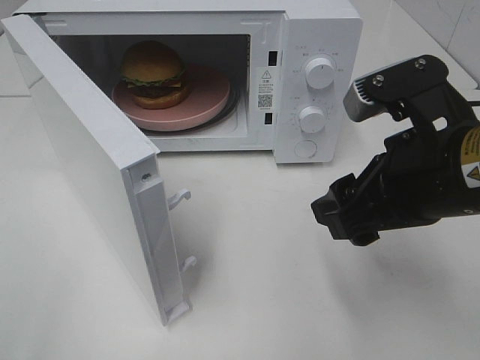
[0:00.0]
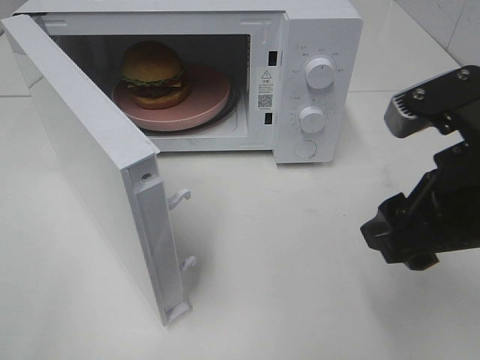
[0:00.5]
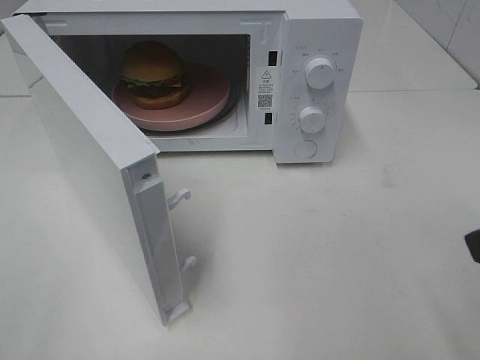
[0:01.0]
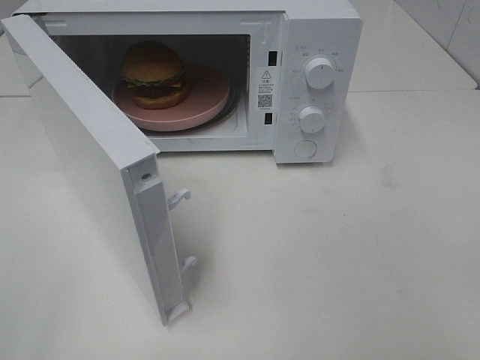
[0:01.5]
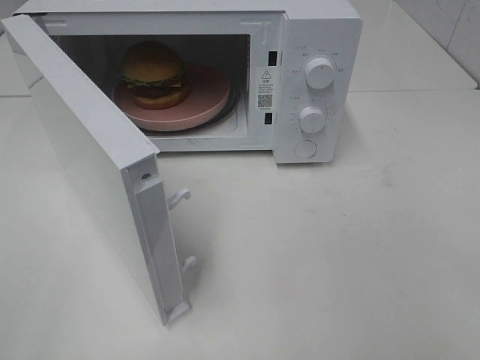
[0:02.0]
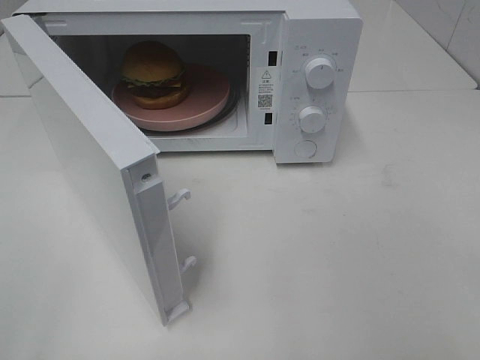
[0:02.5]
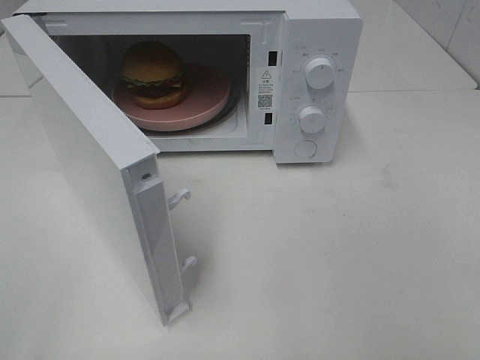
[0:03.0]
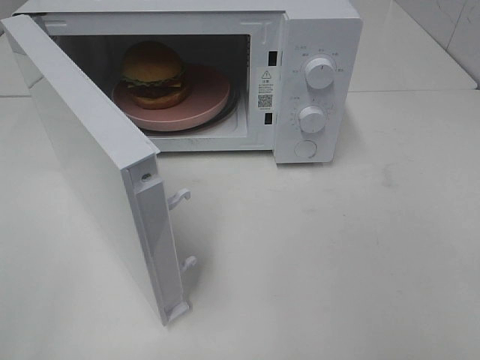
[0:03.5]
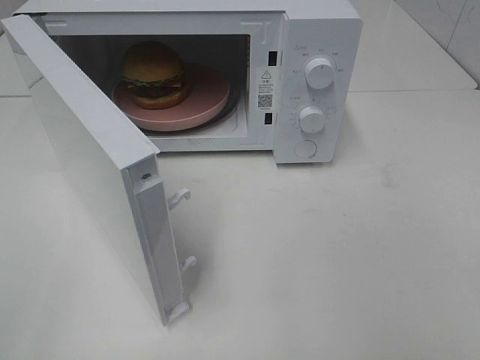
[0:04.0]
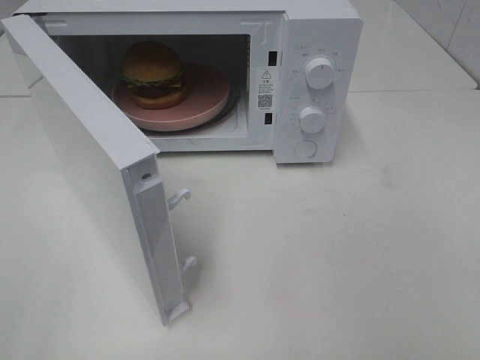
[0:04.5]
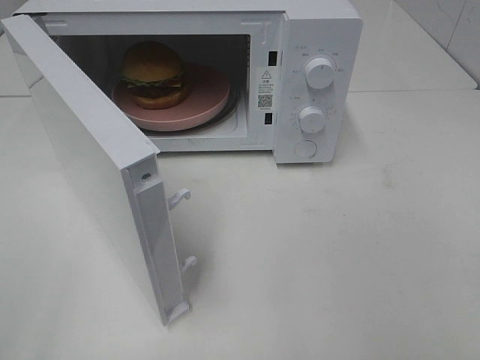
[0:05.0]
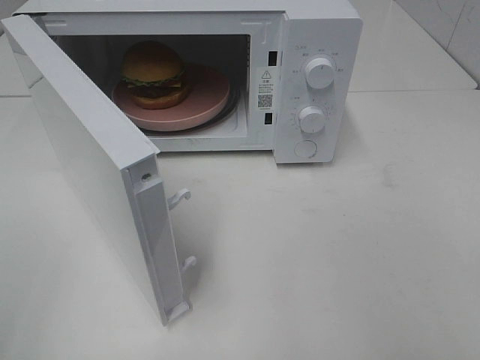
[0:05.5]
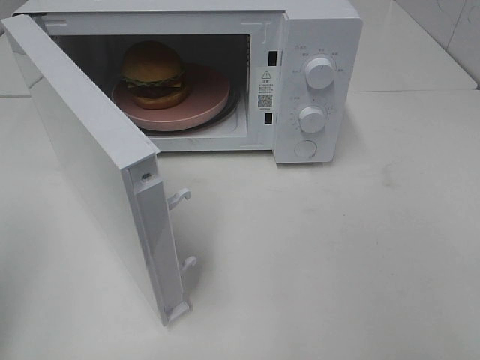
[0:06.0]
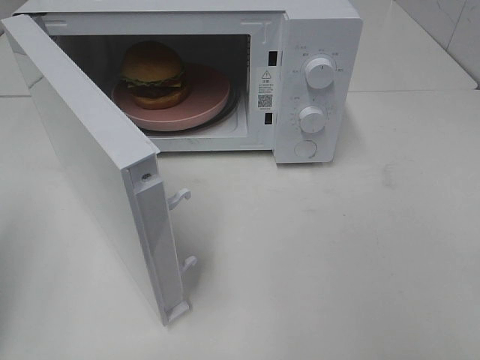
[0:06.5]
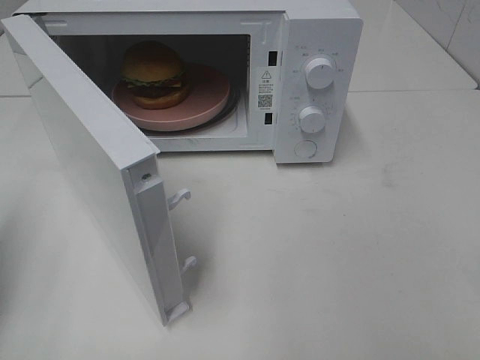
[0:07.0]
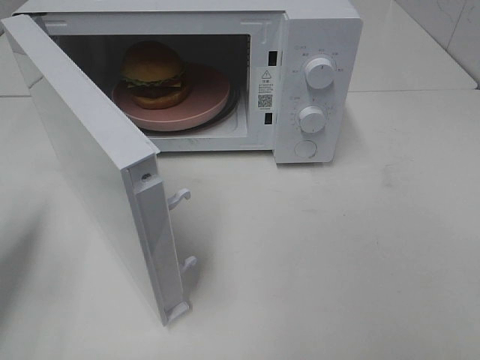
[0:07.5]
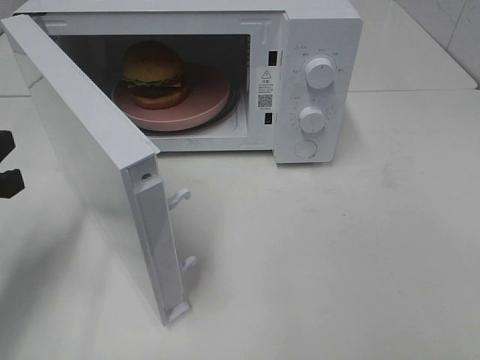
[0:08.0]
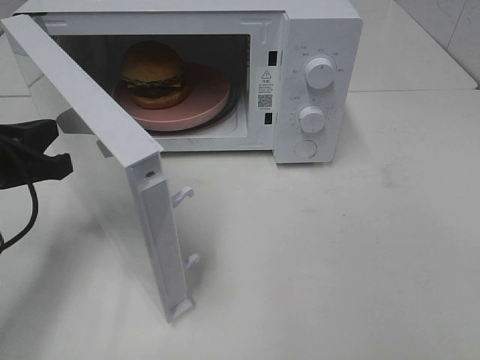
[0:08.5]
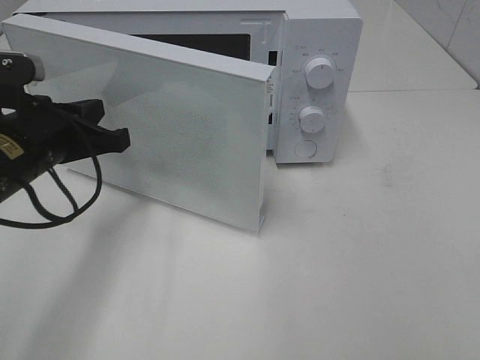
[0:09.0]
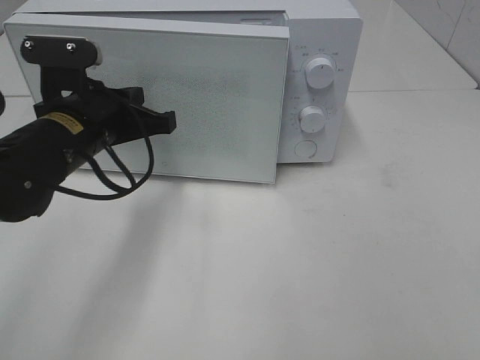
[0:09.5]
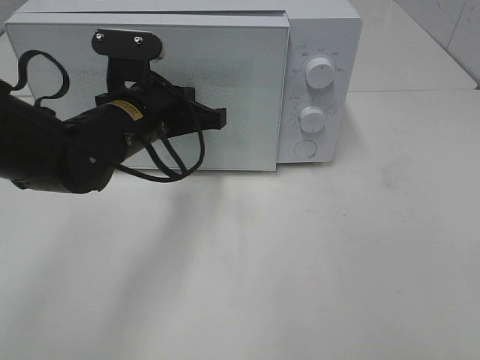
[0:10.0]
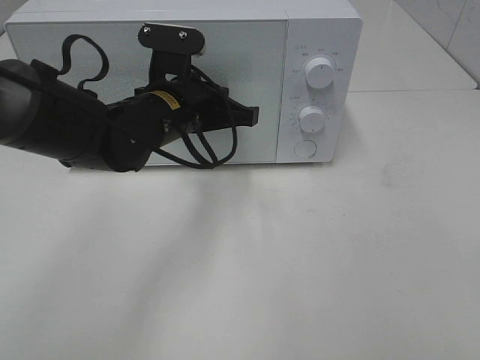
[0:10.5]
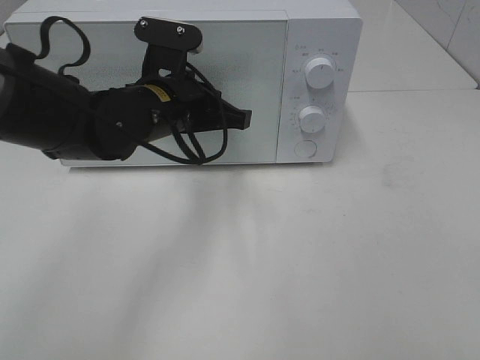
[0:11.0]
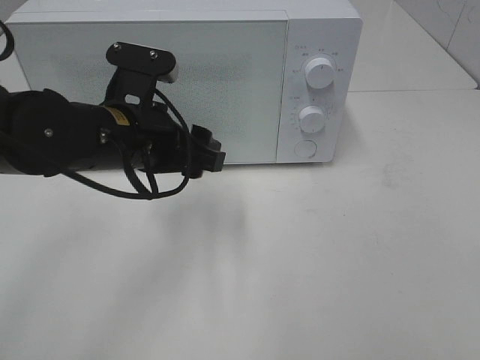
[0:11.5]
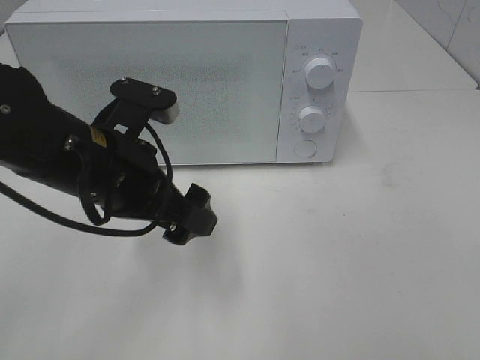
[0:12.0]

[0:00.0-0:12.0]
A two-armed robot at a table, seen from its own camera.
Task of the whole recording: Heat the burger.
Step, 0:00.0 to 0:11.0: Left hand: close the microwave door.
0:00.0 to 0:02.0: The right gripper shifts about 20 cm backward and to the right.
0:06.0 to 0:08.0: The left gripper travels downward and forward by approximately 15 cm.
0:08.0 to 0:10.0: The left gripper heads to the right and forward, covering about 20 cm.
0:10.0 to 0:12.0: The left gripper is displaced backward by approximately 10 cm, and opens its fingers.

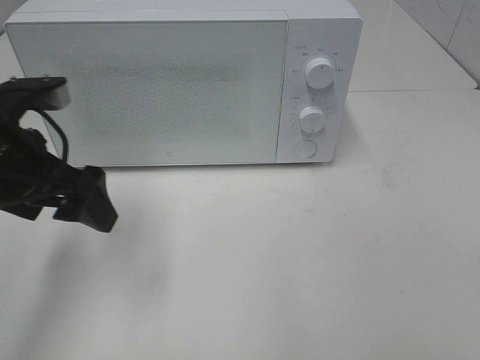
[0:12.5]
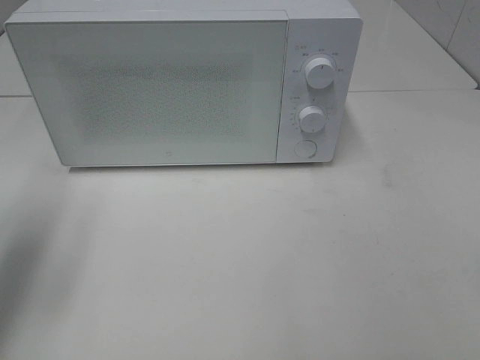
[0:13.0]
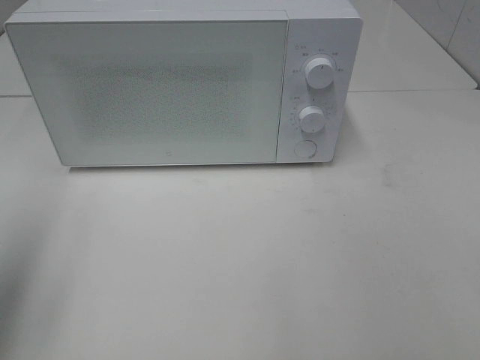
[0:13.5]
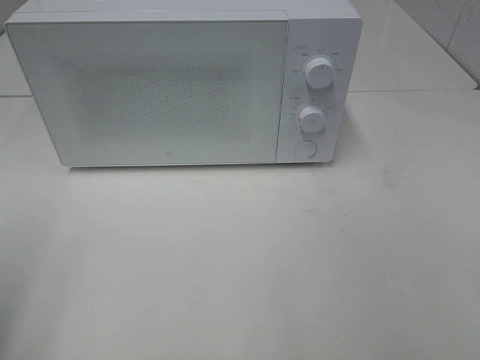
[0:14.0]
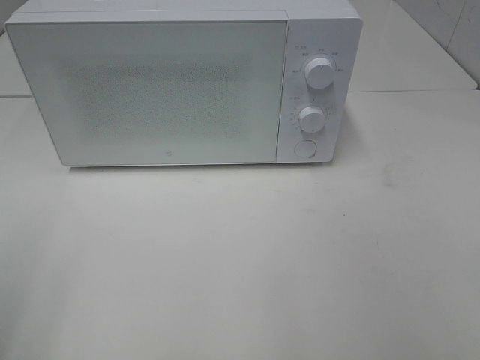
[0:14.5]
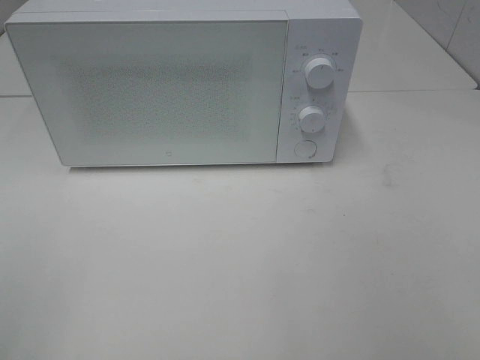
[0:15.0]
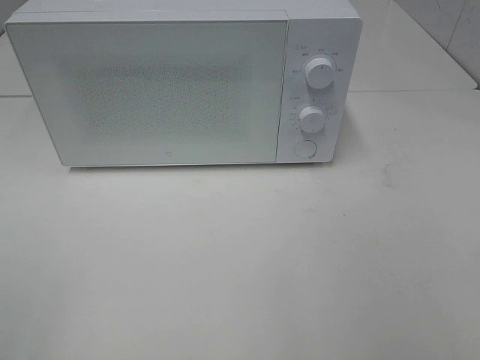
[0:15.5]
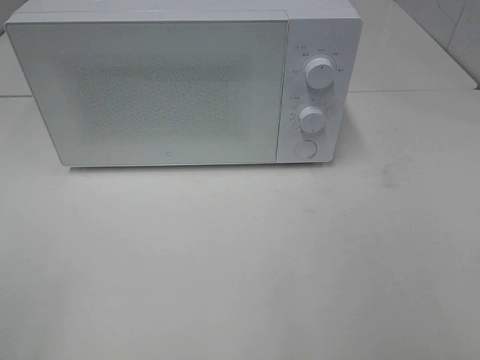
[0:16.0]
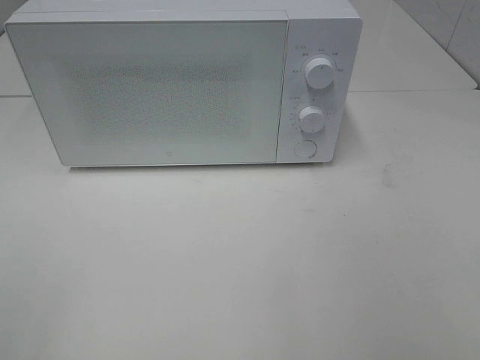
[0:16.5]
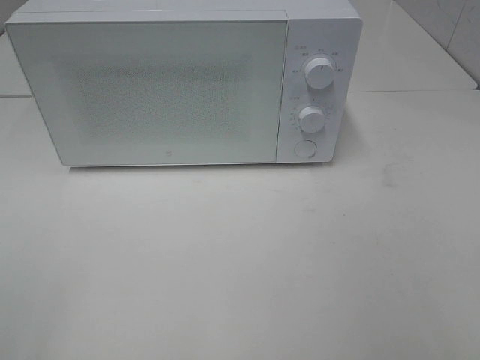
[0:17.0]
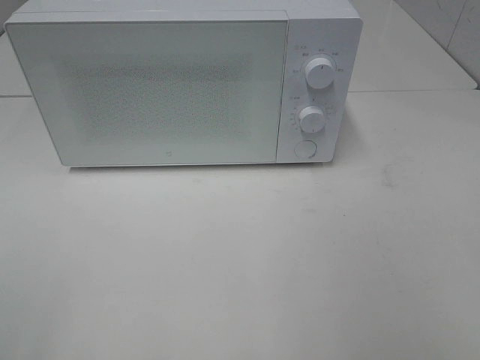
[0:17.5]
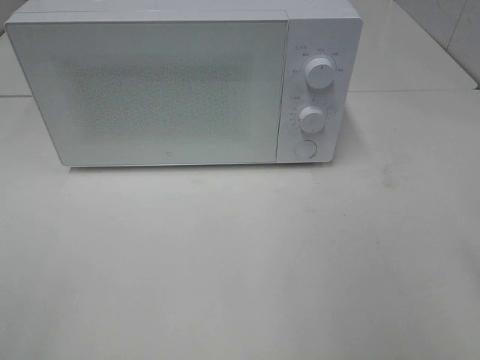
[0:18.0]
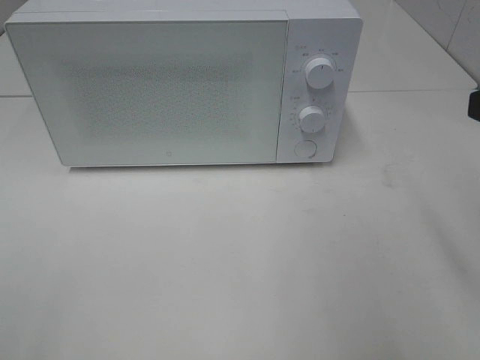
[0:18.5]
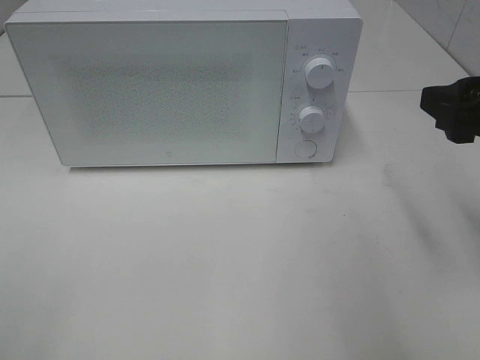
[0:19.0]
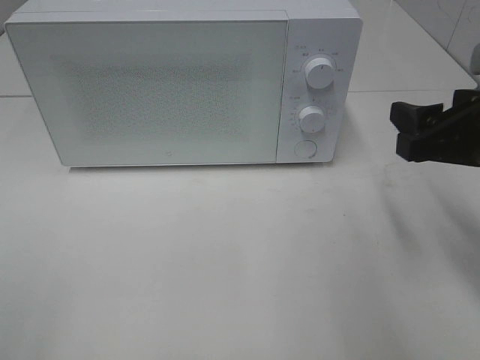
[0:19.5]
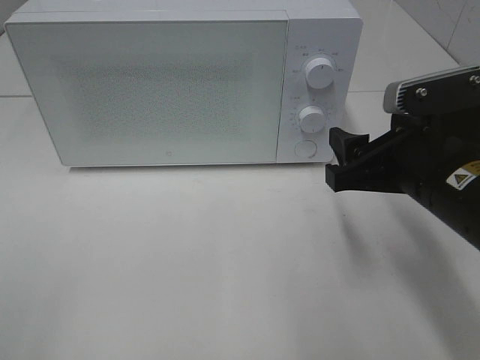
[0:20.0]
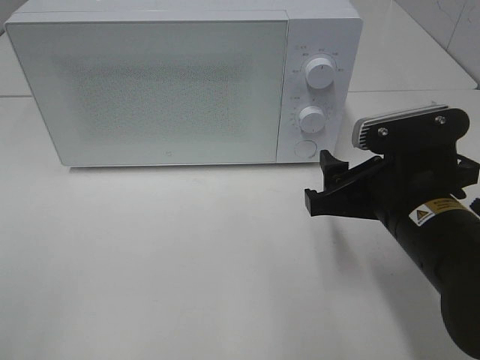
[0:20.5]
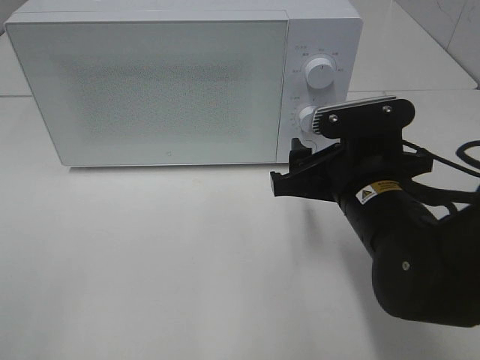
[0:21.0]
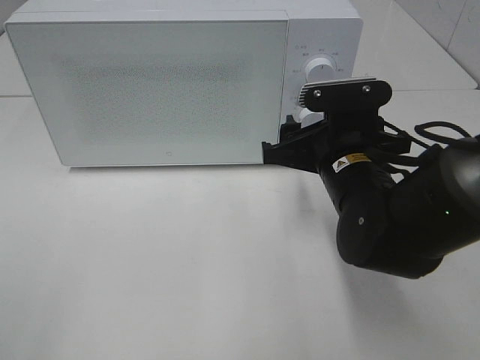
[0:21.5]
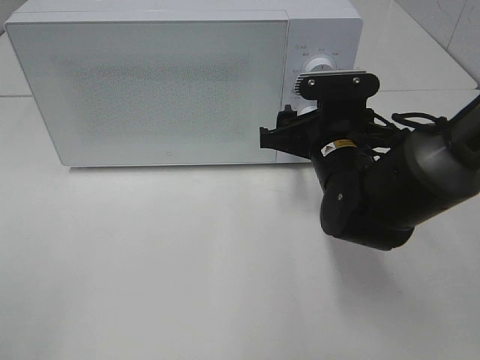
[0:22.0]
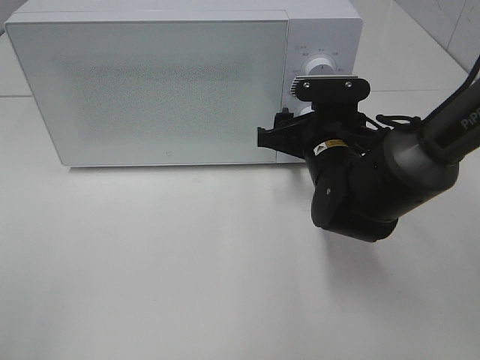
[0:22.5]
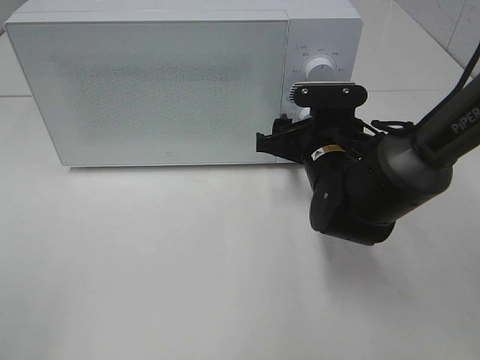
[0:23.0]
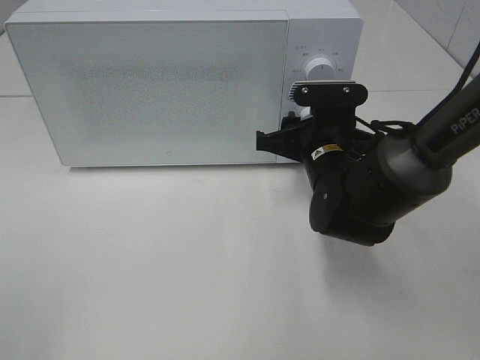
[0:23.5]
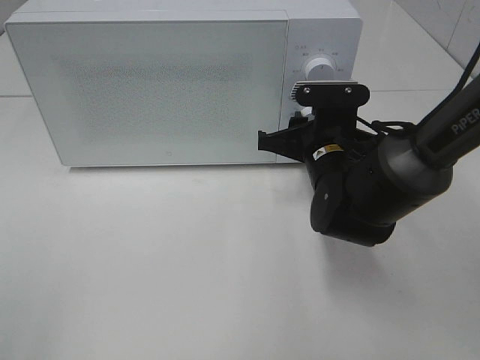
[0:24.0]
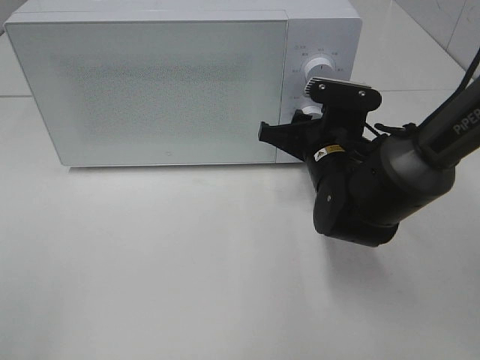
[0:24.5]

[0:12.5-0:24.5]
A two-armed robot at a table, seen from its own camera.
Task of the whole recording: Heat the burger.
0:12.5 to 0:14.5: The left gripper travels backward and to the left by about 20 cm.
0:18.5 to 0:20.5: The right gripper travels downward and to the left by about 15 cm.
0:20.5 to 0:22.5: The right gripper travels forward by roughly 15 cm.
0:22.5 to 0:24.5: The grippers stay close to where they were, moving slightly.

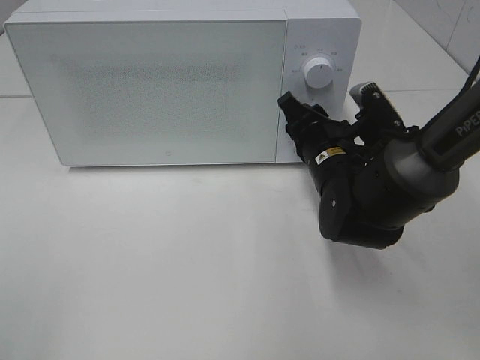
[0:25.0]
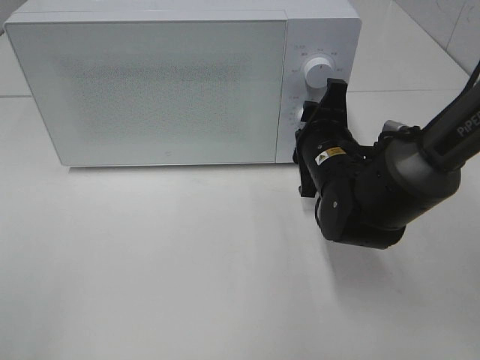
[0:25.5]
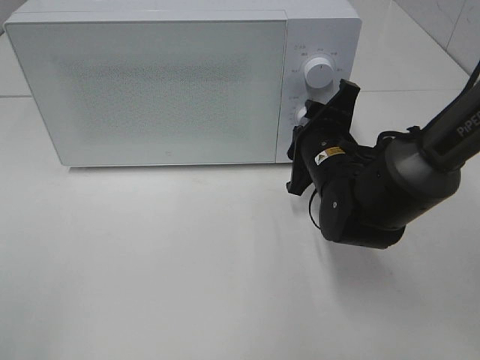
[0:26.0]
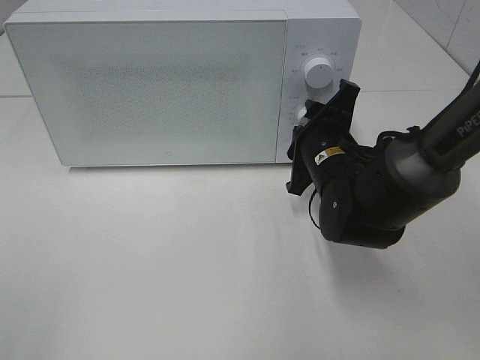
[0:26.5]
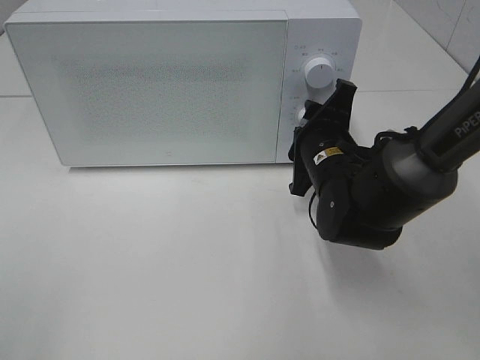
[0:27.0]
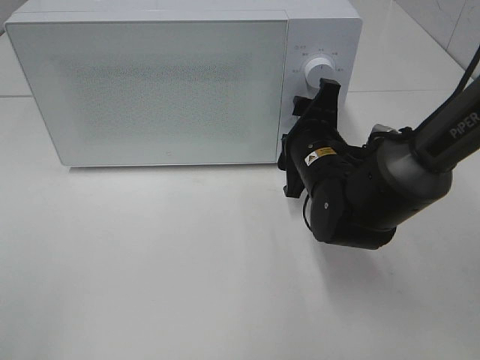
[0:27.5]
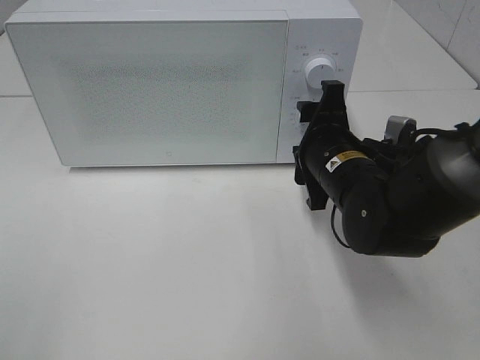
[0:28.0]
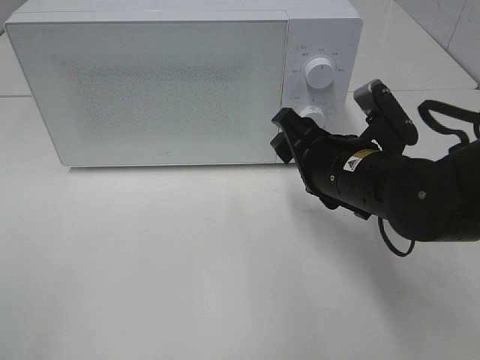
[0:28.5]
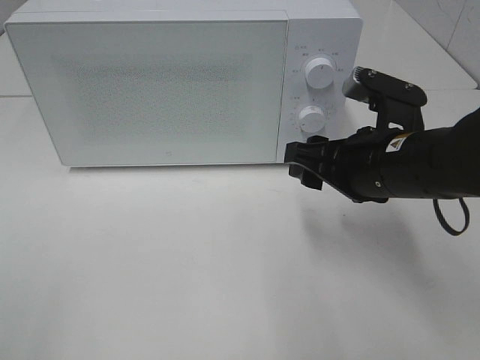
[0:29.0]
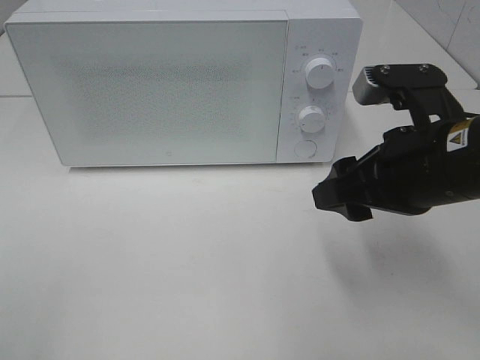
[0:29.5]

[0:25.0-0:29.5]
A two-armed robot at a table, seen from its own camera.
Task of the whole recording: Heat the burger.
Step, 0:25.0 to 0:27.5: Right hand: twist timer button.
0:27.0 to 0:29.5: The right gripper goes some 15 cm backward, upward and to the right.
